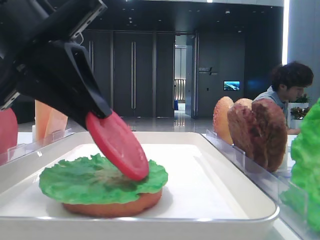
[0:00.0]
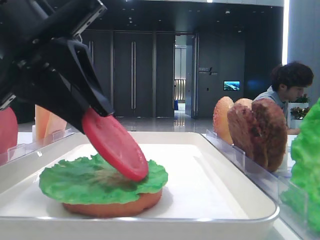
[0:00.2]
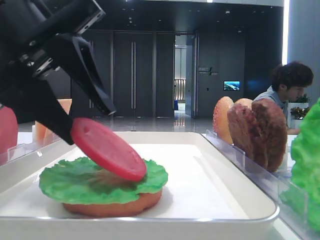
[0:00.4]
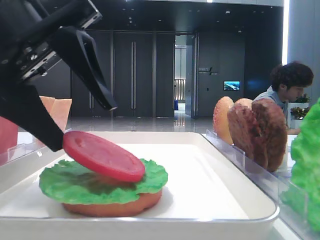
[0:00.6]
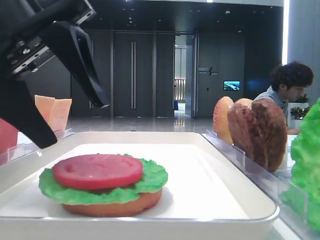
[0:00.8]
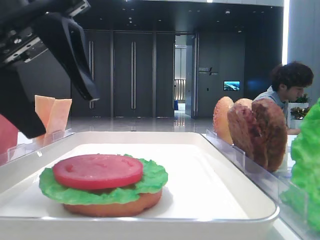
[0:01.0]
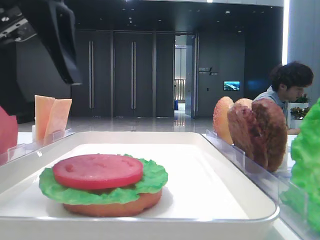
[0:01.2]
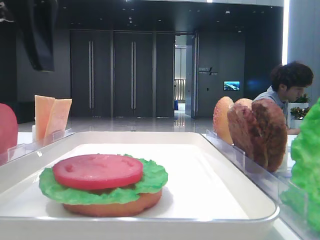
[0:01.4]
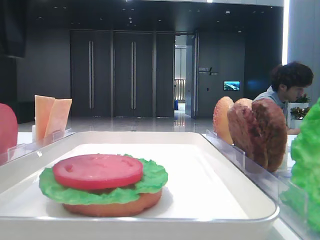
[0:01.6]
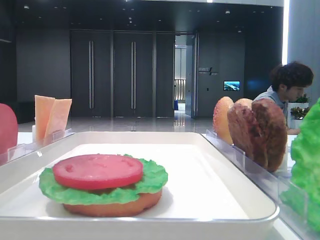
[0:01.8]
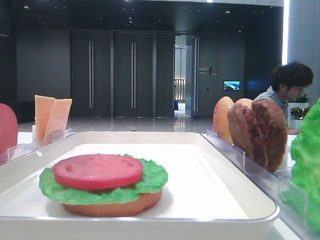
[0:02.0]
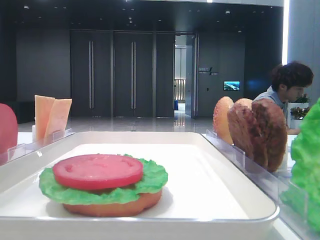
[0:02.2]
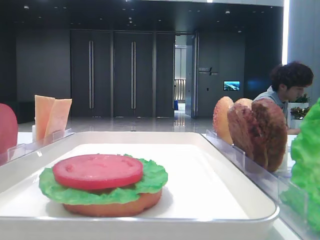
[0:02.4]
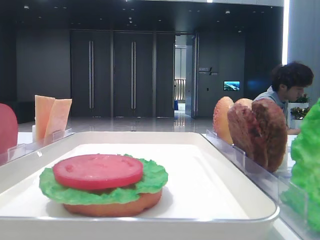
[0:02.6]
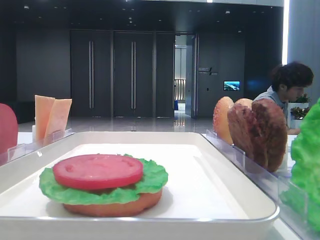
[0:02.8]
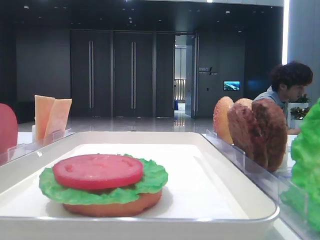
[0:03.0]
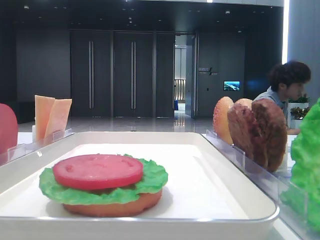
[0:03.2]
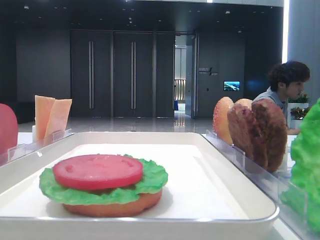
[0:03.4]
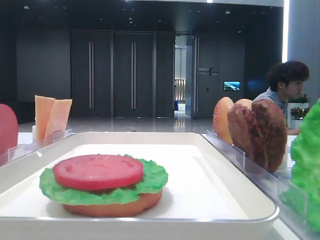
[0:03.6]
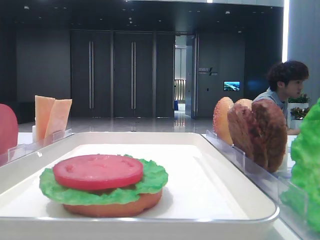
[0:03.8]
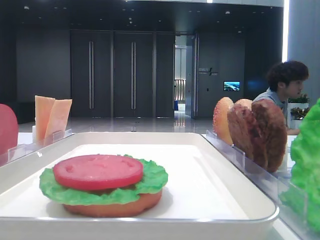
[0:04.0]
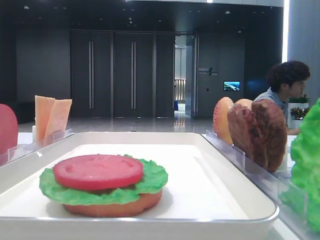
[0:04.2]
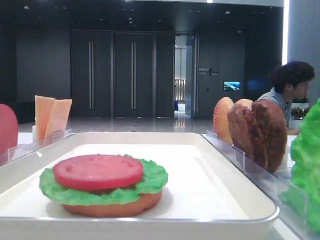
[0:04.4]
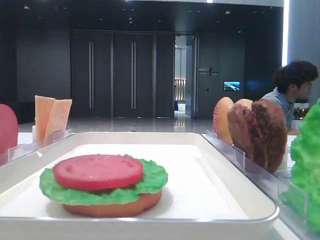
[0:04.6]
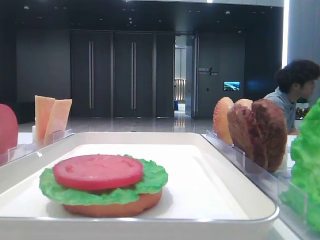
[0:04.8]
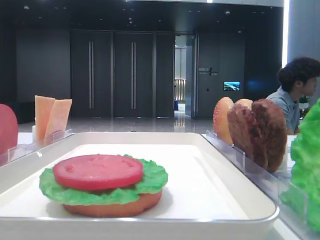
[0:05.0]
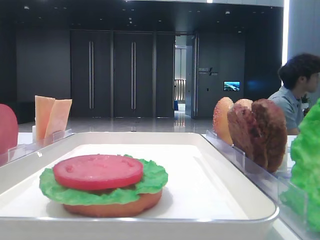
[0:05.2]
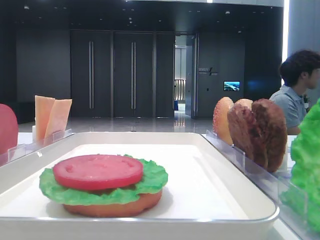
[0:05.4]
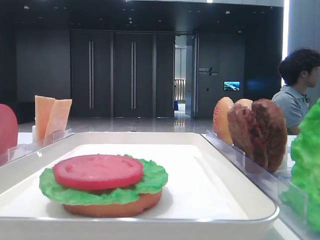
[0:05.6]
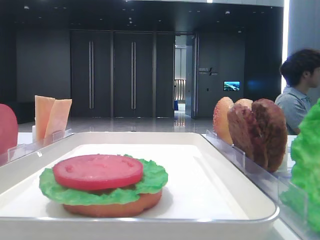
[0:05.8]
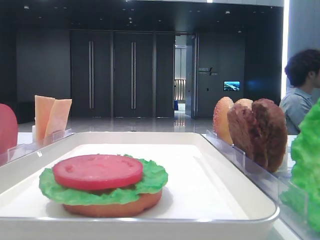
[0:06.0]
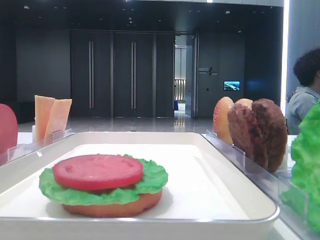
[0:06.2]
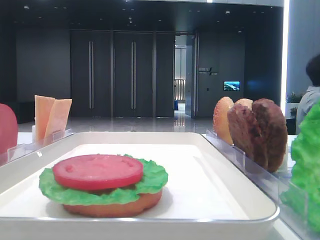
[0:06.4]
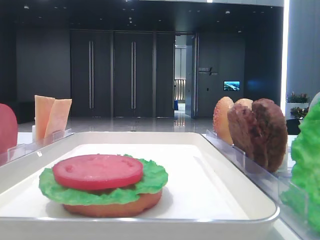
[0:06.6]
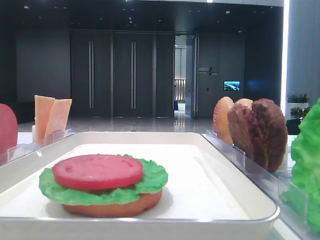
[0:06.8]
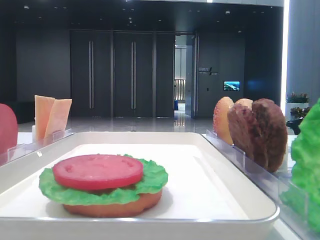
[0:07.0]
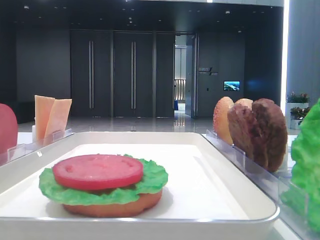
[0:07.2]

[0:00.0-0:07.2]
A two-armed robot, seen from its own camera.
0:00.0 to 0:01.4: The left gripper shifts about 5 cm upward, and opens its fingers.
0:01.4 to 0:02.8: The left gripper travels to the left and upward by about 15 cm.
0:04.4 to 0:07.2: Both grippers stay put.

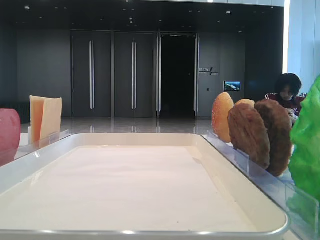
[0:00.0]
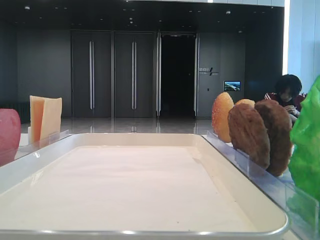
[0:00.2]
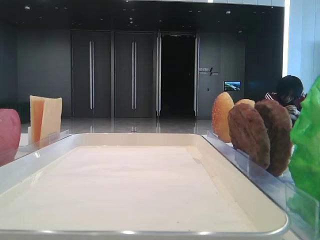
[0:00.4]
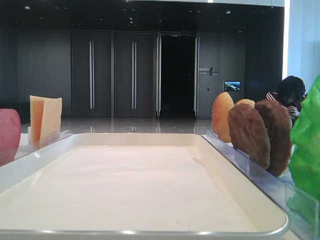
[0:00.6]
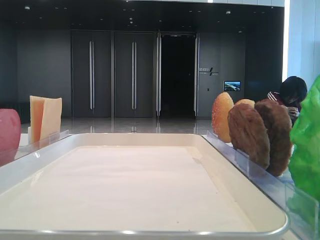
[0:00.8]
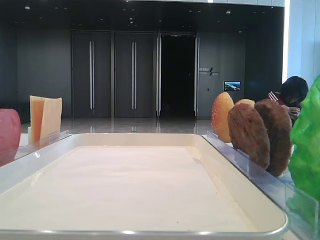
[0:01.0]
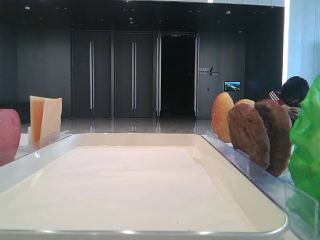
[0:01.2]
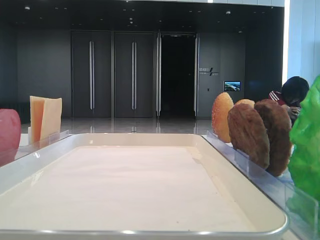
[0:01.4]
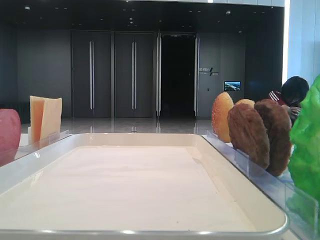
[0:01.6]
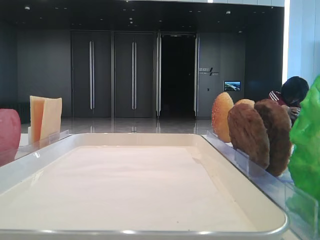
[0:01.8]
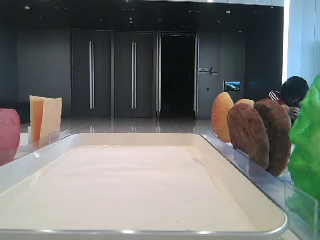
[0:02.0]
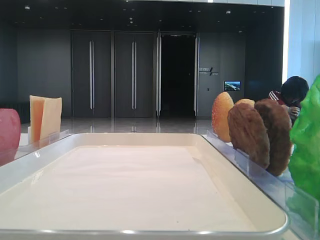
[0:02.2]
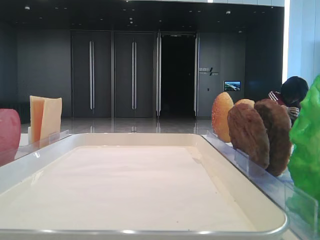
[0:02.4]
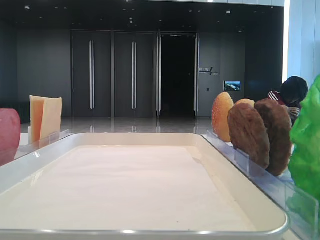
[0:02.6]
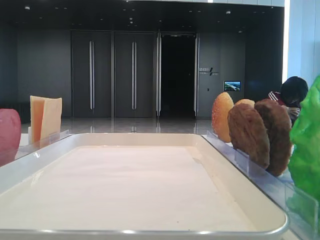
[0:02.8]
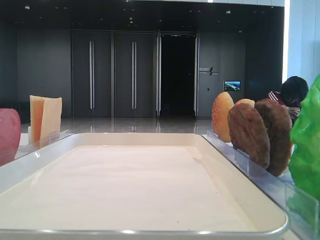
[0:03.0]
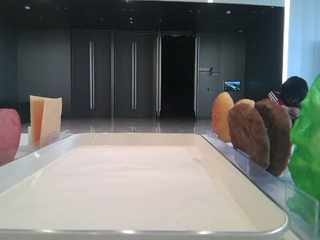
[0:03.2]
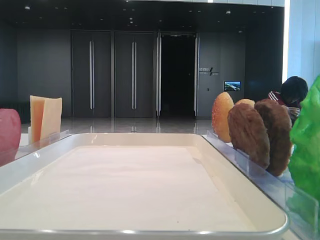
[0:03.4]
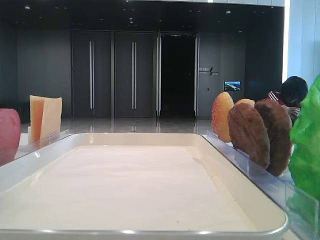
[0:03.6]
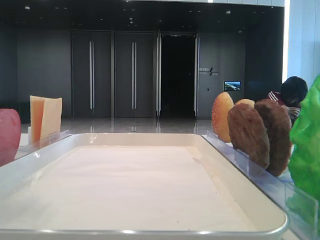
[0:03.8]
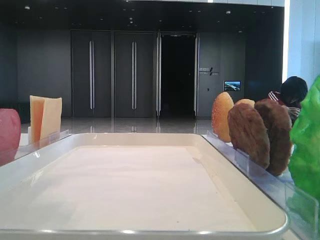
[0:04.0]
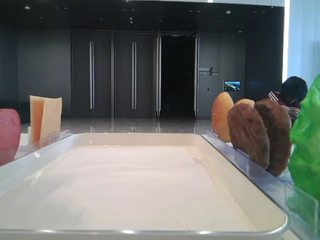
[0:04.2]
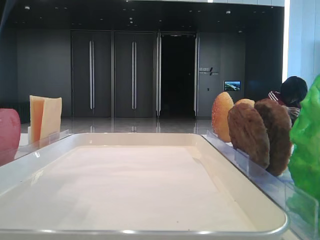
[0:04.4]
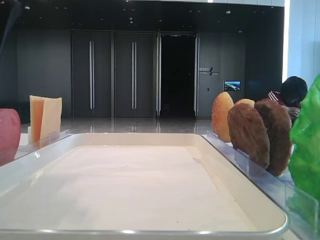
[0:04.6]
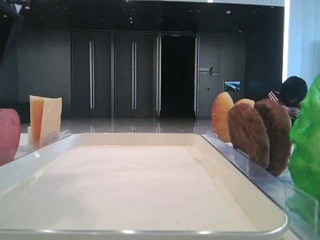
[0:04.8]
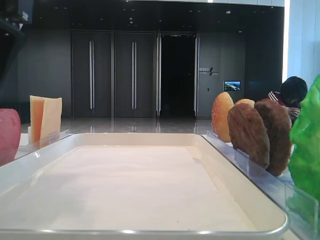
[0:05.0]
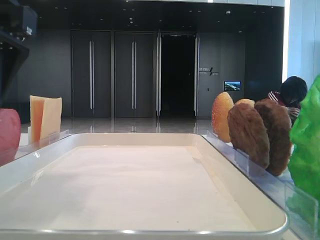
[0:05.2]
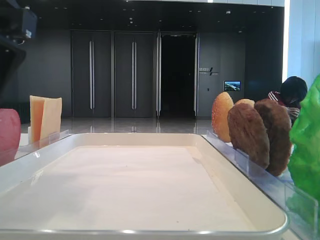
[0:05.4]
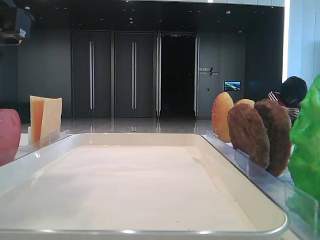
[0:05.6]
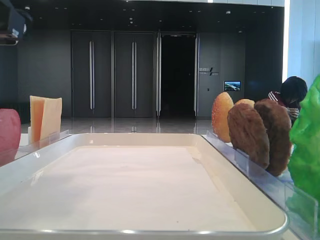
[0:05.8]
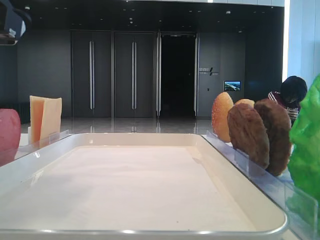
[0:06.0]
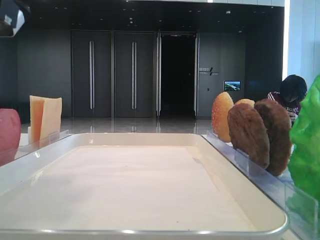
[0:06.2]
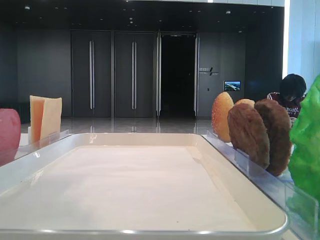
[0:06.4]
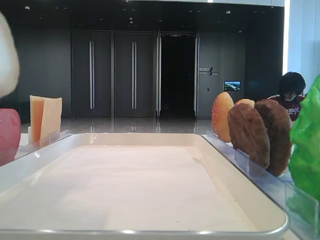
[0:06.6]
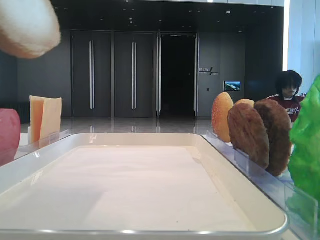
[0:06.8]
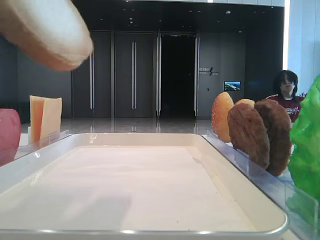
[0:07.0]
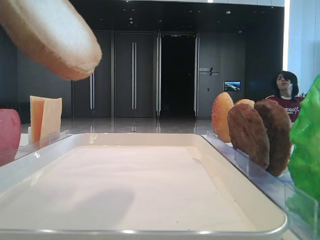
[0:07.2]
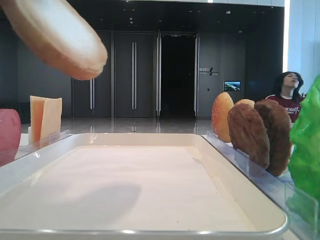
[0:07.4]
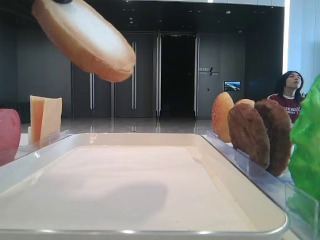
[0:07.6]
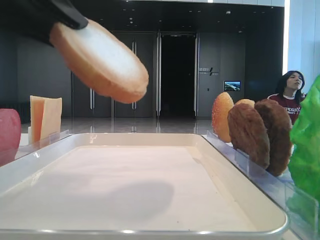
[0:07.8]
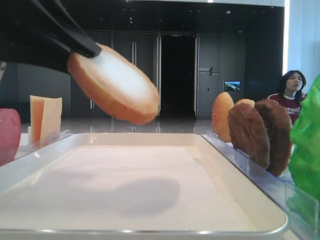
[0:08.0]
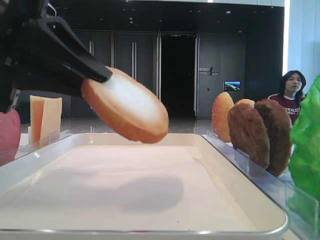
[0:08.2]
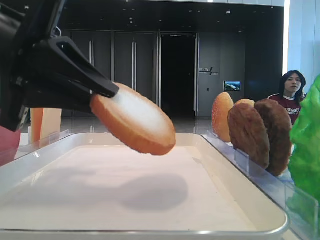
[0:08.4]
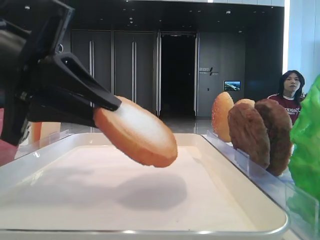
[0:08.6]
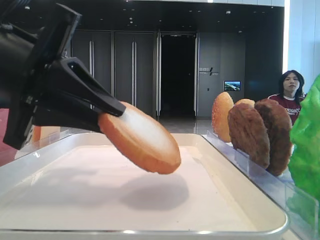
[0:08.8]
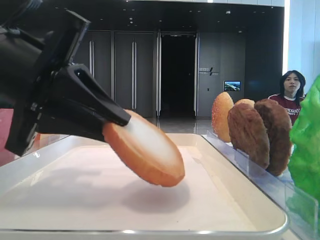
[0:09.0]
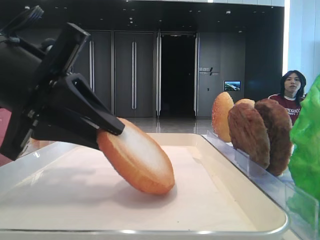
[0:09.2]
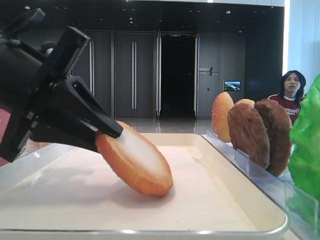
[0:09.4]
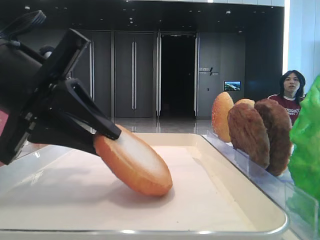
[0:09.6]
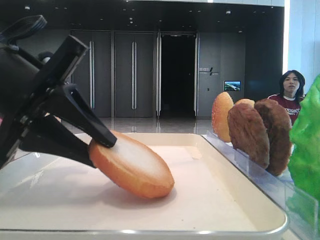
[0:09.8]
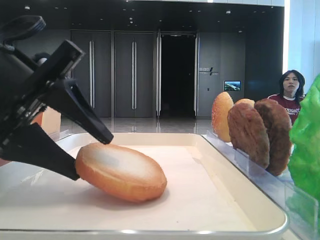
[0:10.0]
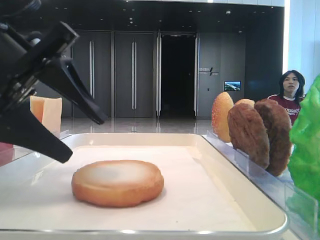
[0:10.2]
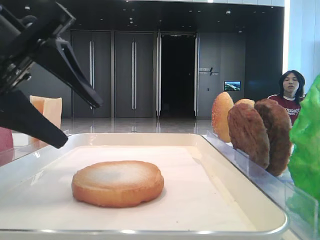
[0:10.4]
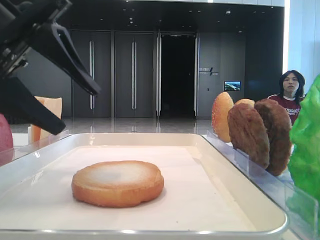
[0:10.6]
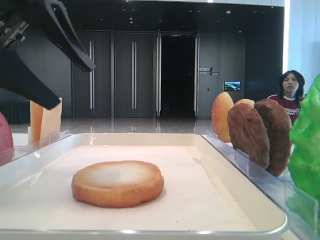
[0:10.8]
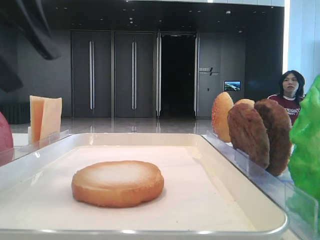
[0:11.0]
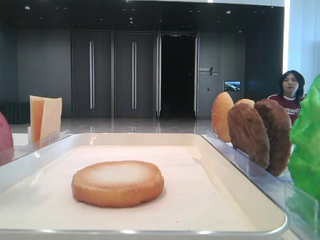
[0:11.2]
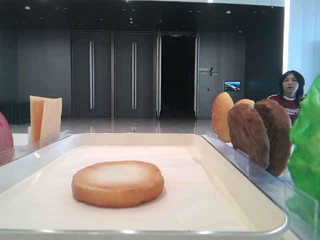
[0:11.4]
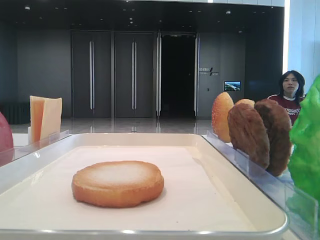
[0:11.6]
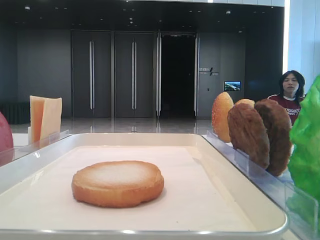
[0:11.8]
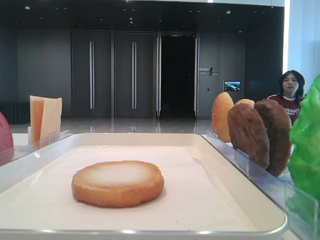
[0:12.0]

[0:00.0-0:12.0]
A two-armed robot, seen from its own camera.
Step, 0:06.2 to 0:10.0: Place the bread on the tray with the left hand.
0:03.0 to 0:04.4: The left gripper is displaced to the right by approximately 15 cm.
0:06.0 to 0:07.6: The left gripper travels upward and back again, about 10 cm each way.
0:07.6 to 0:09.0: The left gripper travels downward by roughly 10 cm.
0:09.0 to 0:10.4: The left gripper opens.
0:10.4 to 0:12.0: The left gripper moves to the left and upward, roughly 20 cm.

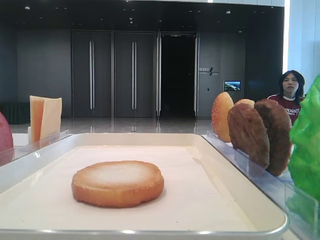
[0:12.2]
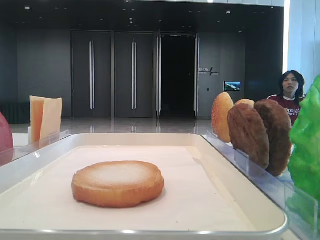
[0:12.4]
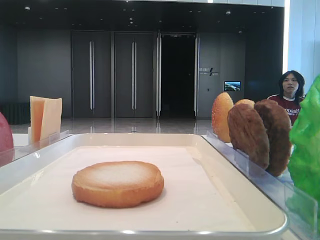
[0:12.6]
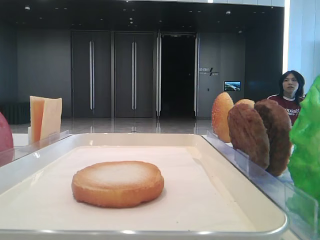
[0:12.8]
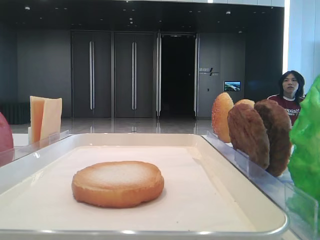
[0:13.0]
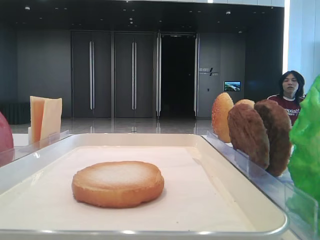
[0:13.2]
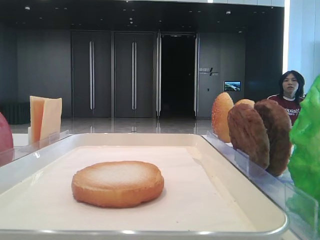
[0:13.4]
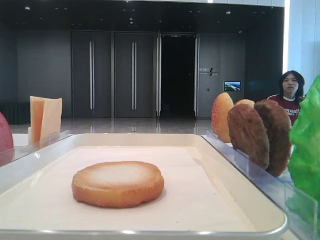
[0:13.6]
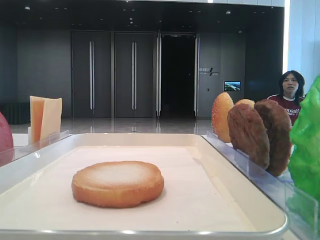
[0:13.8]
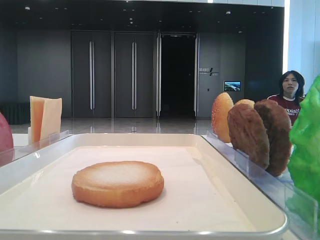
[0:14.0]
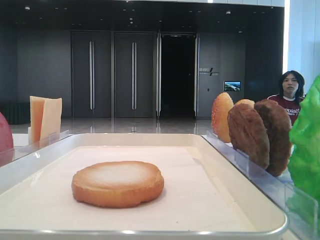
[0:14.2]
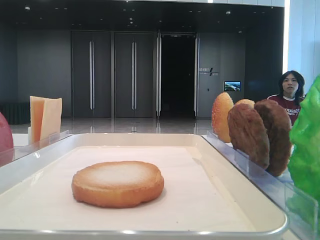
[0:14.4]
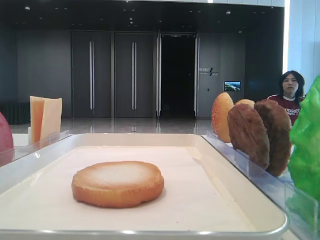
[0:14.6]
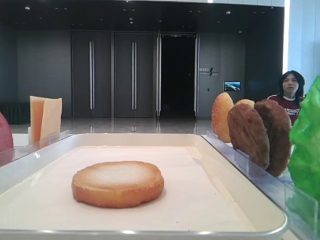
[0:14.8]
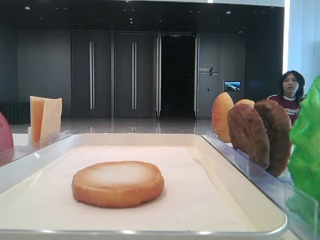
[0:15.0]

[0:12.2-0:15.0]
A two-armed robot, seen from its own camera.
0:13.6 to 0:15.0: Both grippers stay about where they are.
